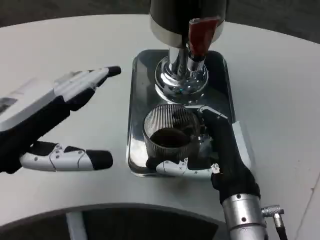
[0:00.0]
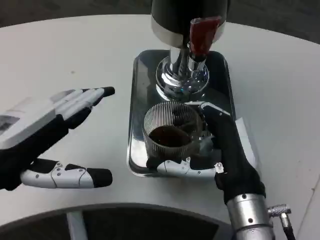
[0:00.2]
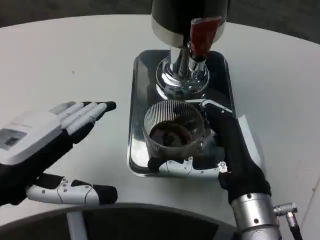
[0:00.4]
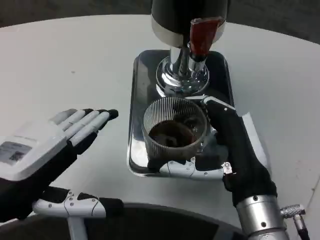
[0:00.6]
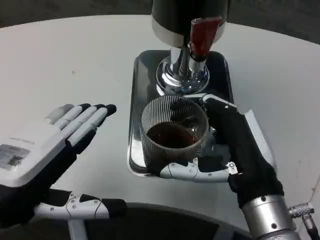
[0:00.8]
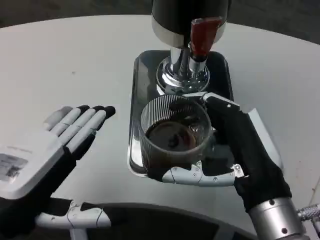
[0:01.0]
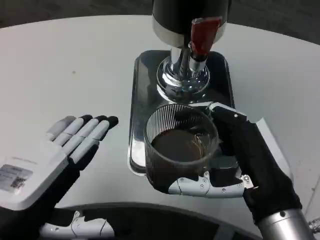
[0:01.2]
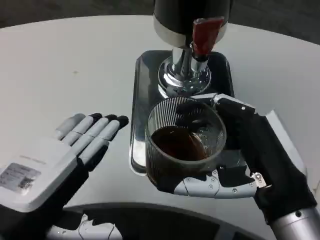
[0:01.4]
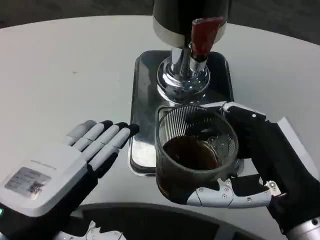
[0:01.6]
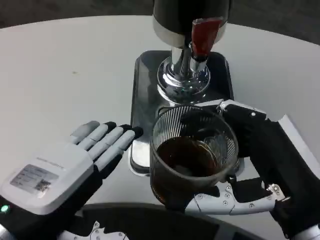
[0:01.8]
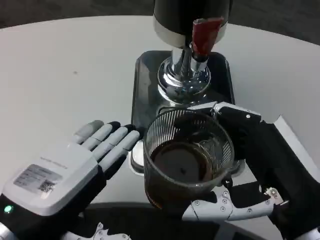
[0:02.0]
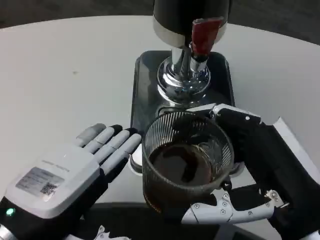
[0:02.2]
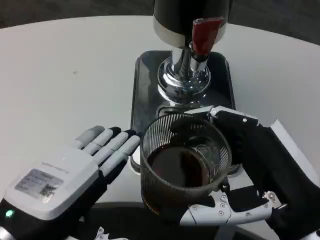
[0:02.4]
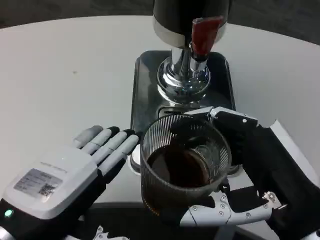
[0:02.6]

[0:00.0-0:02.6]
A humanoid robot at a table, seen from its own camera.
Task of the whole recording: Grasp the cup under the faucet to collect the drink, then remove the cup.
0:00.0 to 0:01.2: The right hand moves backward, some 5 cm, while the left hand travels downward and backward by approximately 10 cm.
0:01.2 to 0:02.6: The right hand shifts by about 5 cm.

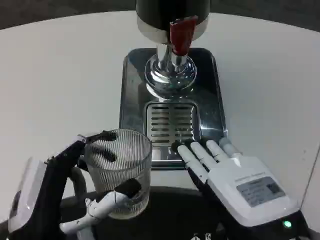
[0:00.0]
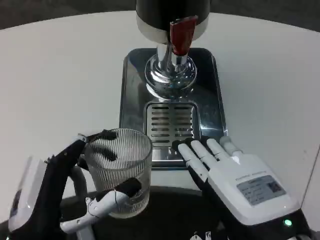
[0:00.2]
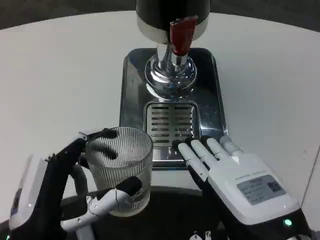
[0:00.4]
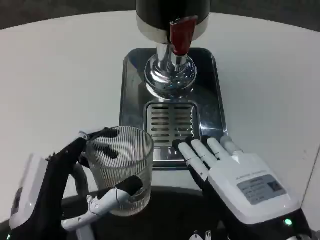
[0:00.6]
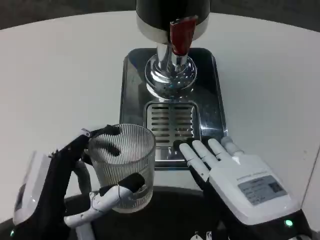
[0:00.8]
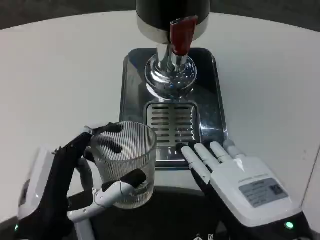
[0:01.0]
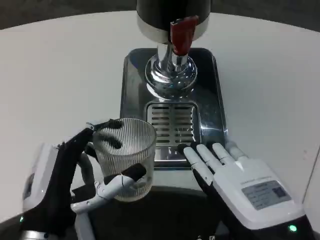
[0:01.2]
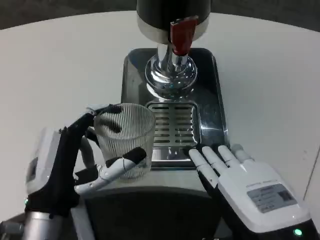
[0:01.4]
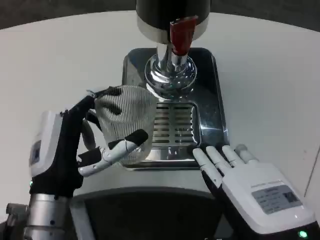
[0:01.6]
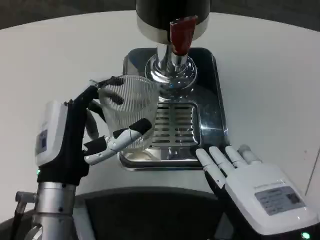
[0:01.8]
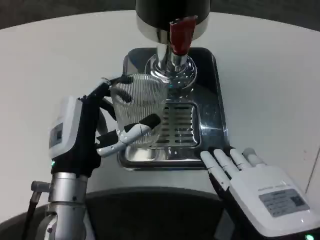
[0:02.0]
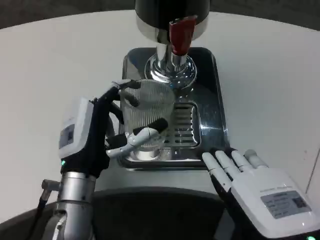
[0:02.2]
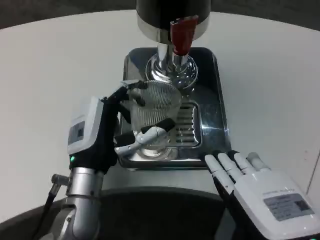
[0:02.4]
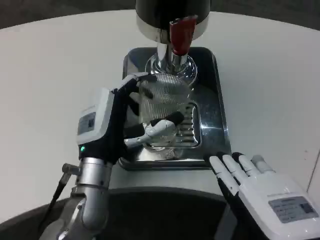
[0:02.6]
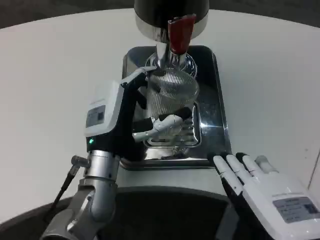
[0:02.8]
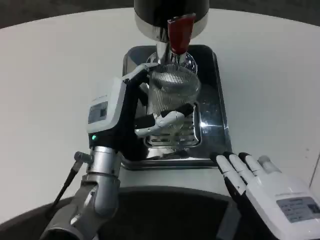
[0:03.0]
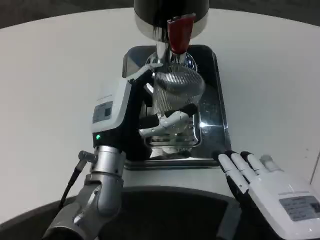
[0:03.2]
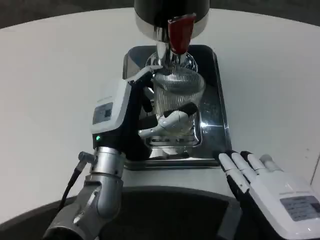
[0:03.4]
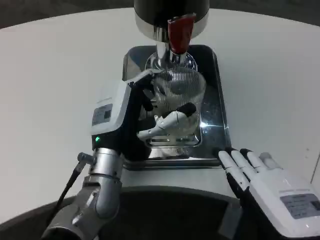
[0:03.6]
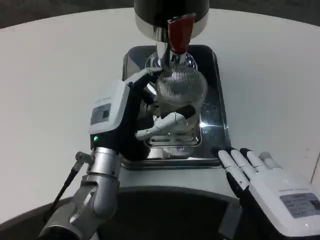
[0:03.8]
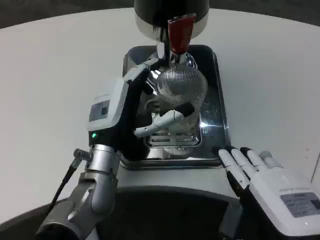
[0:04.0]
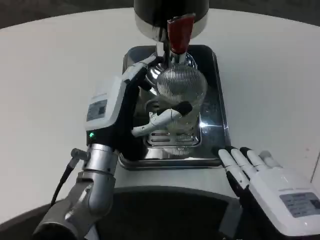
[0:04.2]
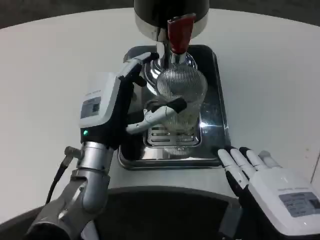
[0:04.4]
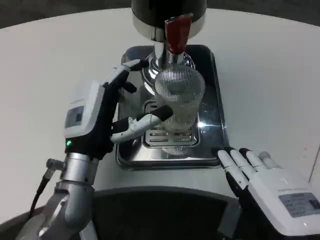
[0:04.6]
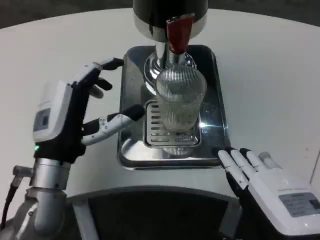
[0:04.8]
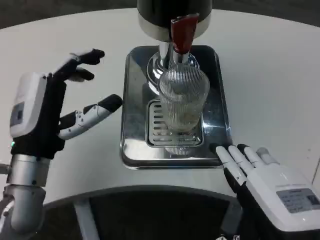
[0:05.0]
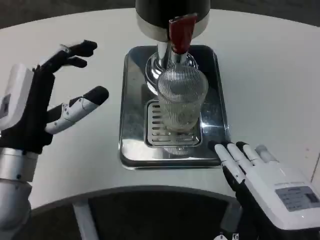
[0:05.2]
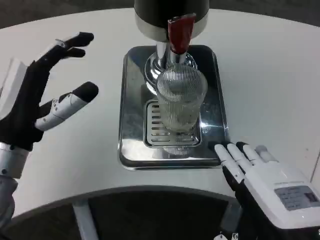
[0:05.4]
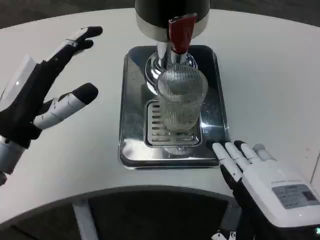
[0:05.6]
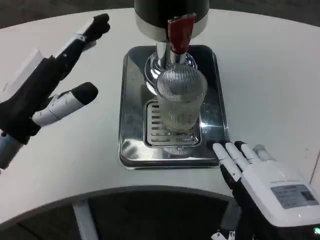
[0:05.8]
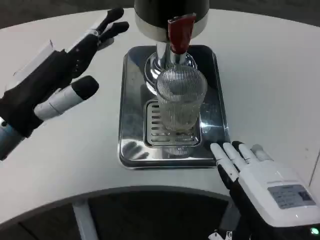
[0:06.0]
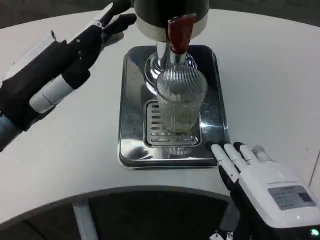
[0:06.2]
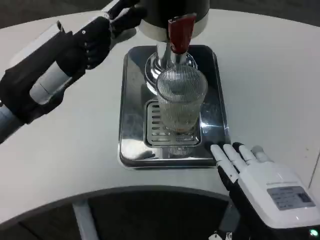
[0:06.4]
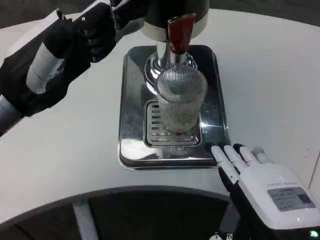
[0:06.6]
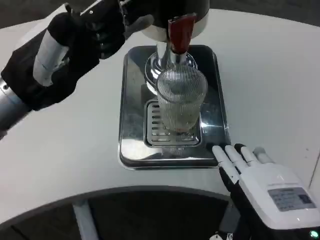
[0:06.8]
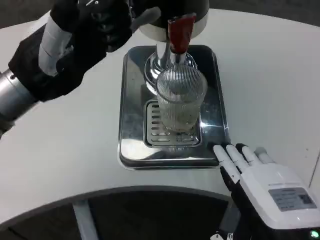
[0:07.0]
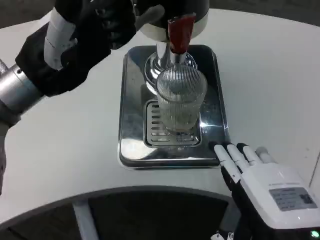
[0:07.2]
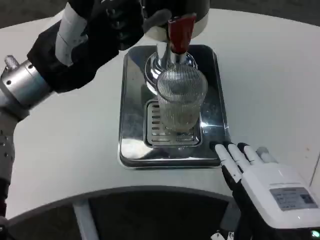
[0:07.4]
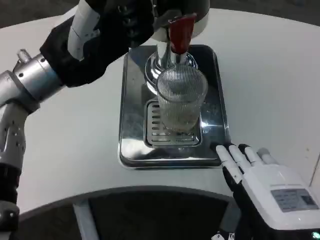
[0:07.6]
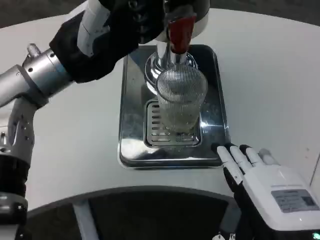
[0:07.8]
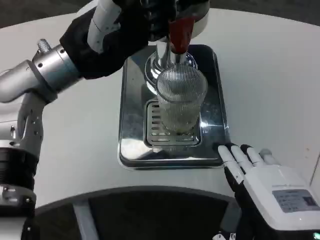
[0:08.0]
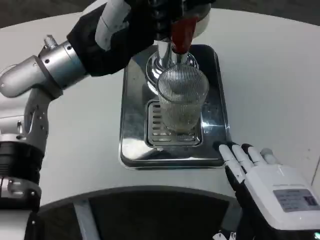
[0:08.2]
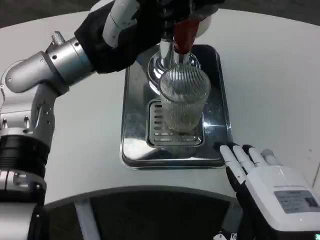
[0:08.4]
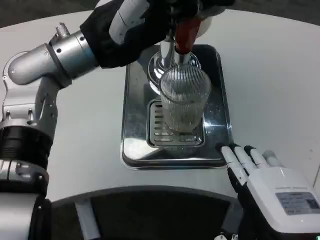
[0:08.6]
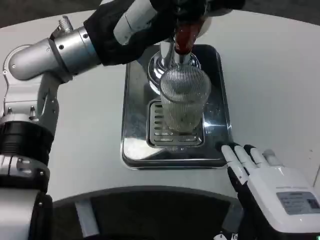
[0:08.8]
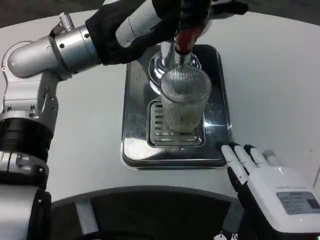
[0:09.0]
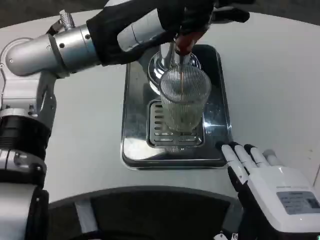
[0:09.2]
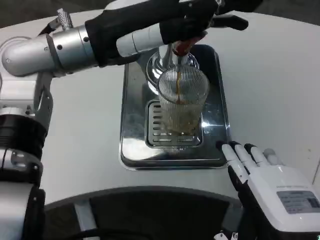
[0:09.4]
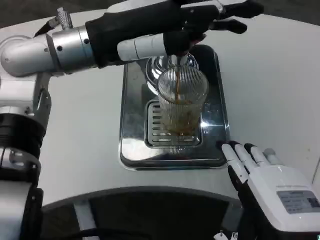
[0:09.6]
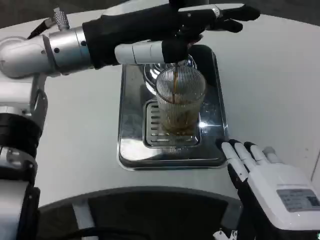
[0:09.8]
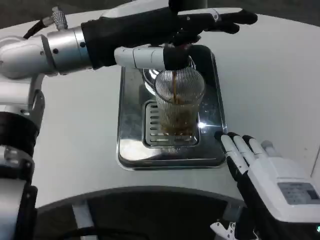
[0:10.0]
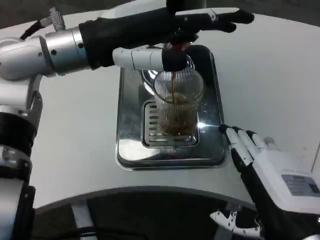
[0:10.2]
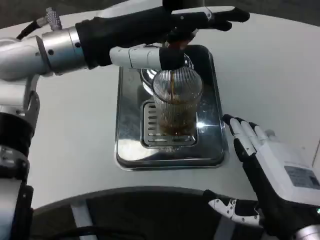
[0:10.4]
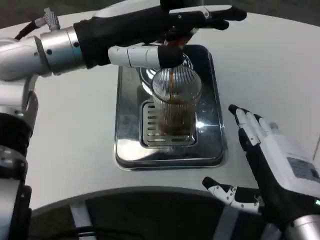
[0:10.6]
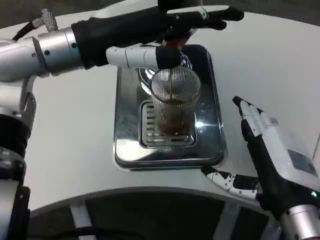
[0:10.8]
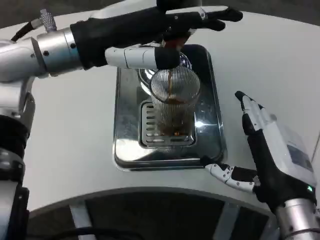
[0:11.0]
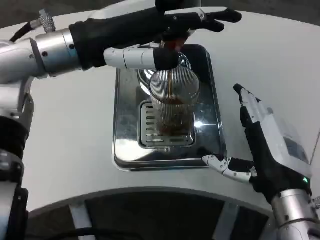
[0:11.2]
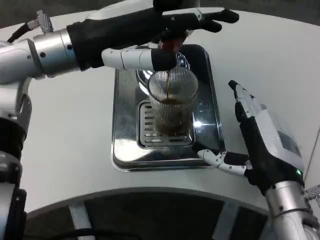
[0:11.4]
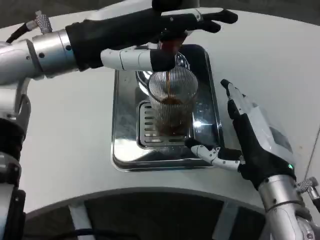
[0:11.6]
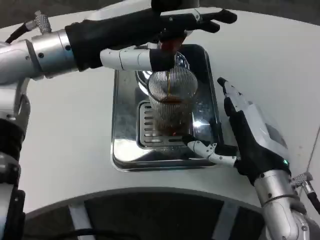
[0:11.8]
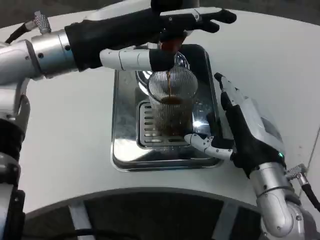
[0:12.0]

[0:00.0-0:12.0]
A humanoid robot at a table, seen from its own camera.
Task of the whole recording: Grasp the cup under the faucet to collect the drink, then remove the cup.
0:00.0 to 0:01.6: The left hand moves forward, approximately 10 cm.
0:01.6 to 0:03.0: The left hand goes roughly 10 cm forward and to the right.
0:03.0 to 0:04.4: There are only small adjustments of the hands.
0:04.4 to 0:06.0: The left hand shifts about 15 cm to the left and upward.
0:06.0 to 0:07.6: The left hand goes roughly 10 cm forward and upward.
0:07.6 to 0:09.0: The left hand moves approximately 5 cm.
0:10.4 to 0:12.0: The right hand moves forward, roughly 10 cm.

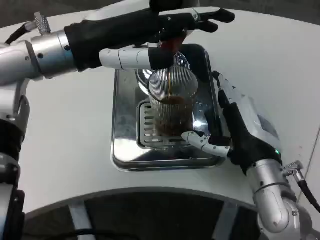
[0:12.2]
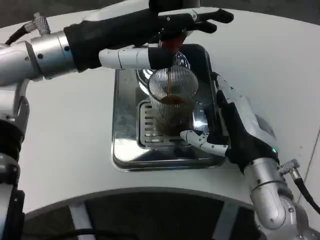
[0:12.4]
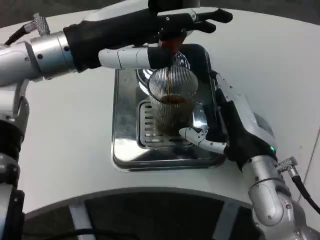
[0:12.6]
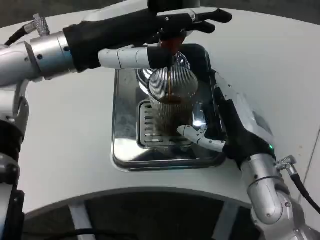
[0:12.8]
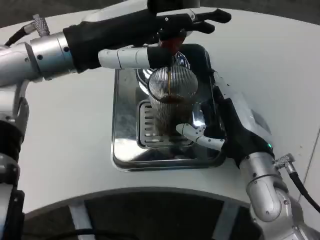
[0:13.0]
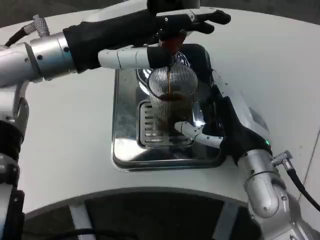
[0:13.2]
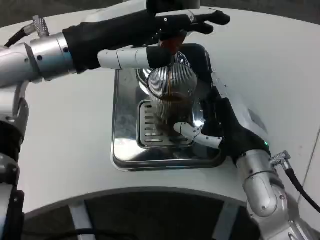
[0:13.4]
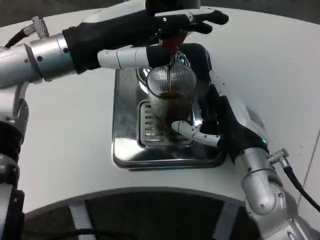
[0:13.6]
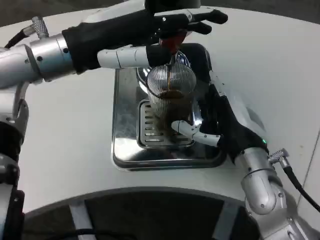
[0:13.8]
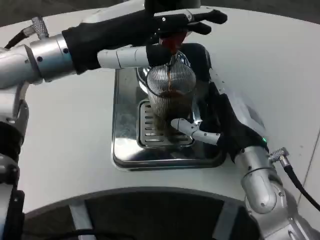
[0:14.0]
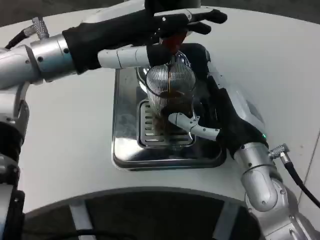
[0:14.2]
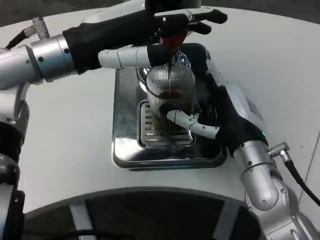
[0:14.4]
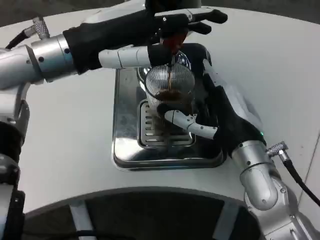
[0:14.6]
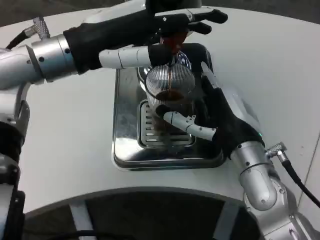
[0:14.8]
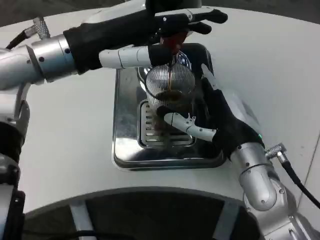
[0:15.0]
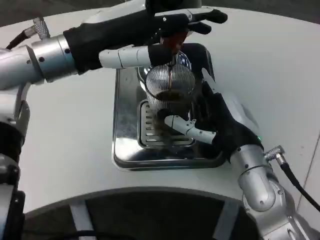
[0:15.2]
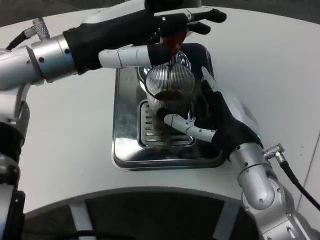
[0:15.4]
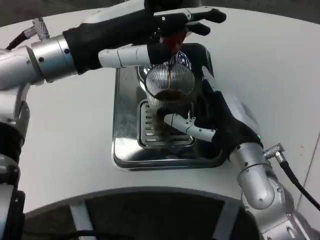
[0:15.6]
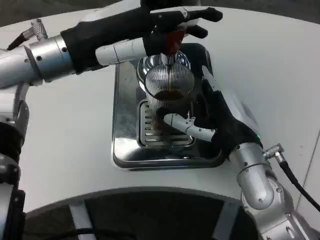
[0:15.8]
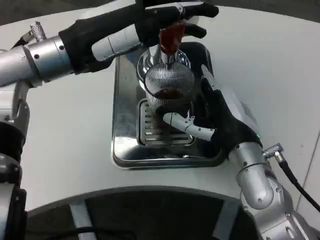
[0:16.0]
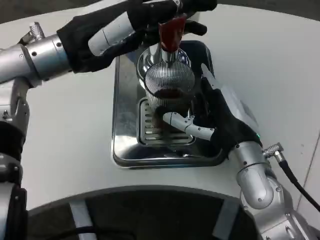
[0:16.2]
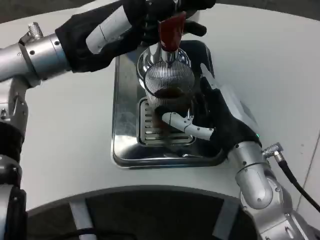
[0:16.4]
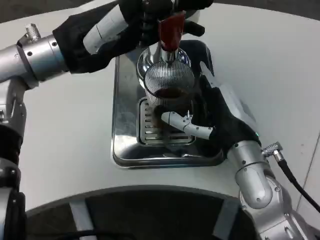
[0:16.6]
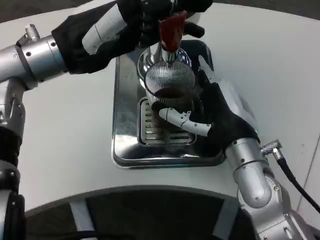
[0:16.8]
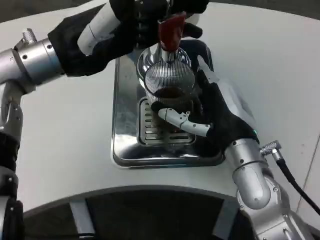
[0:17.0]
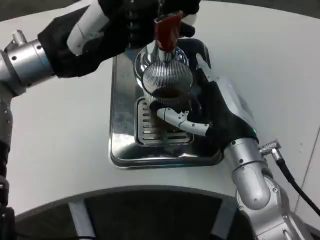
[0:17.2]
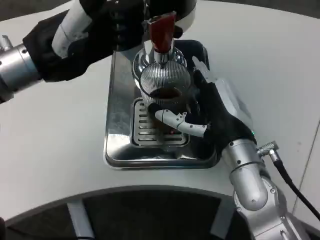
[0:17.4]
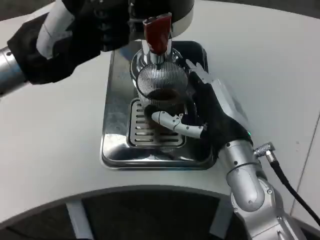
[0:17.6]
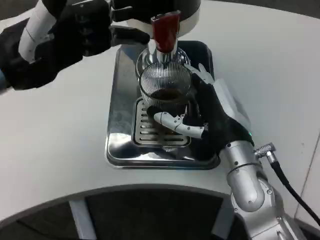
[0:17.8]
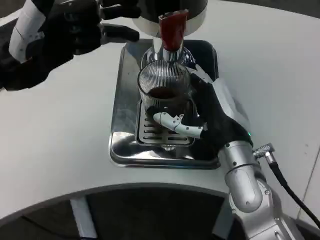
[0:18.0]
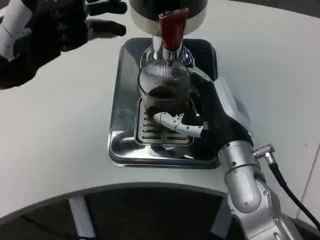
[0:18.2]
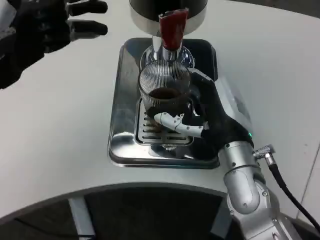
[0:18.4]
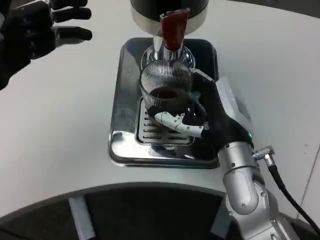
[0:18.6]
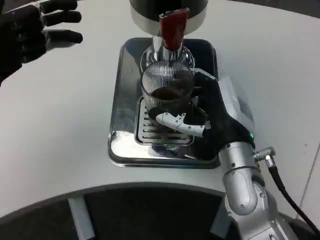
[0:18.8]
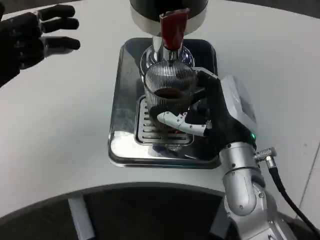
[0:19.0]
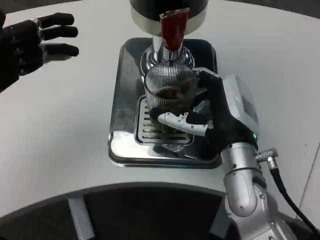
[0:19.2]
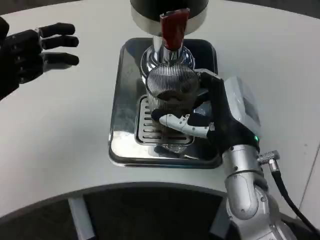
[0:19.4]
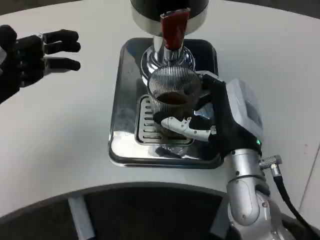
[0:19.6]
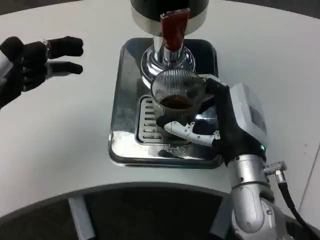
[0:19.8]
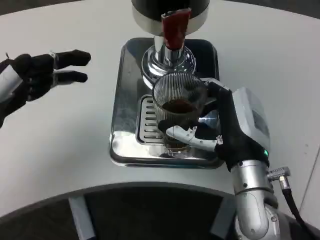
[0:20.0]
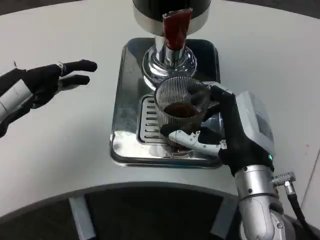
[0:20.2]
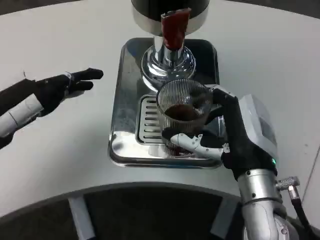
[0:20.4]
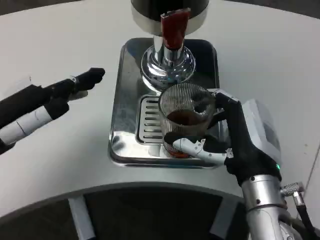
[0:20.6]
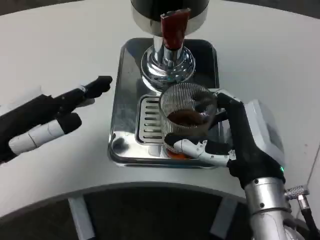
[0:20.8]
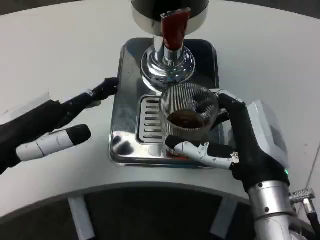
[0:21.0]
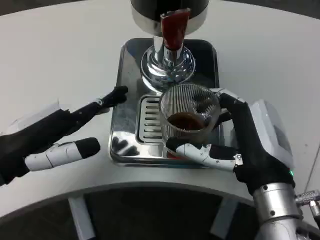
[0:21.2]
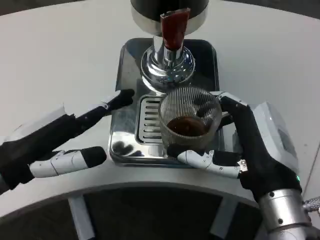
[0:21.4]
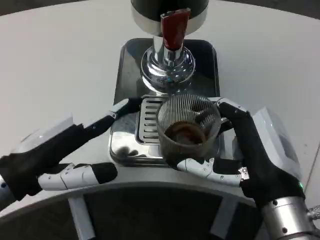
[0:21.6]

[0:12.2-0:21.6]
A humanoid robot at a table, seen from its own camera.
Task of the whole recording: Grasp the cup under the faucet to collect the drink, then remove the cup.
0:12.2 to 0:15.4: The hands stay close to where they were, moving slightly.
0:17.0 to 0:18.4: The left hand is displaced to the left by about 10 cm.
0:18.4 to 0:20.0: The left hand ends up some 5 cm from where it was.
0:20.0 to 0:21.6: The left hand shifts some 10 cm to the right and downward, while the right hand is displaced backward by roughly 5 cm.
